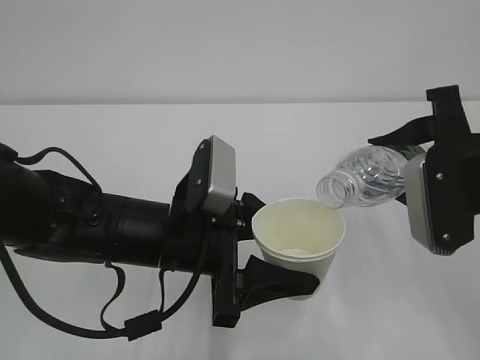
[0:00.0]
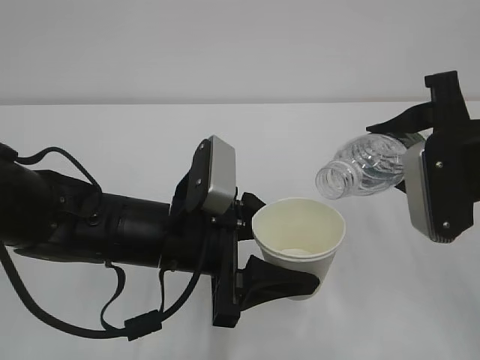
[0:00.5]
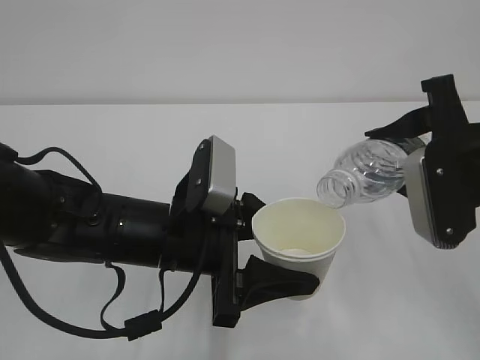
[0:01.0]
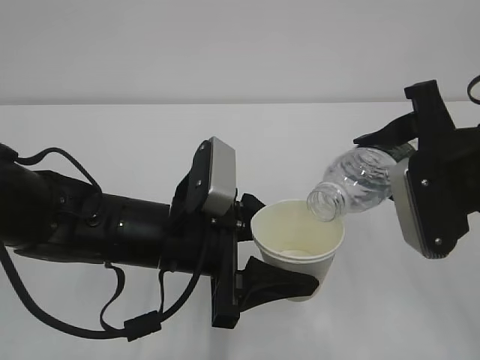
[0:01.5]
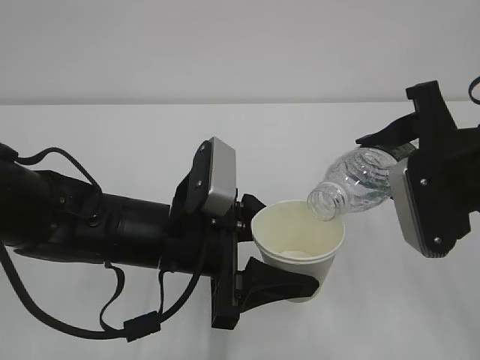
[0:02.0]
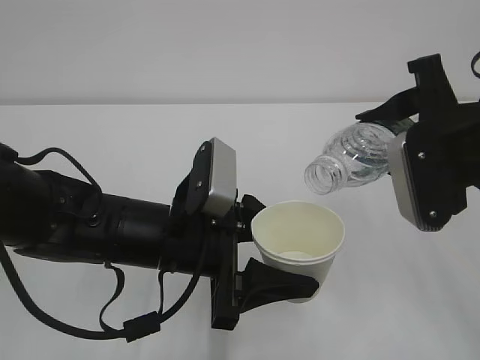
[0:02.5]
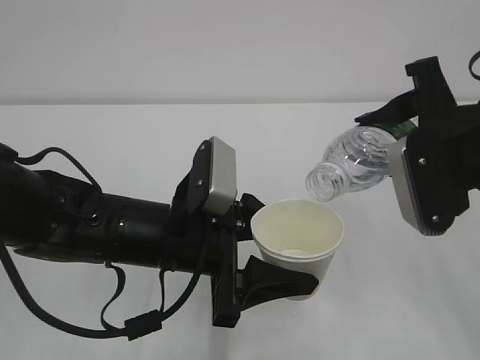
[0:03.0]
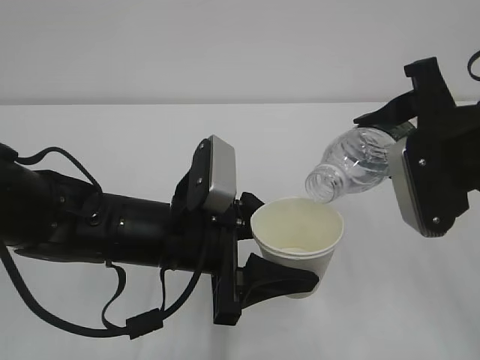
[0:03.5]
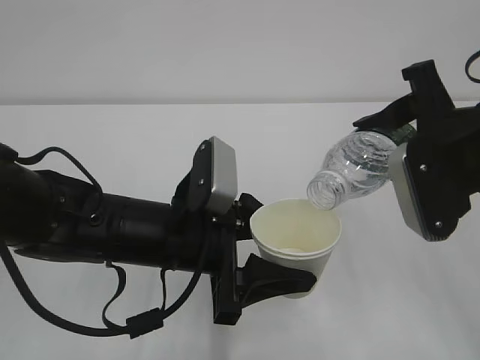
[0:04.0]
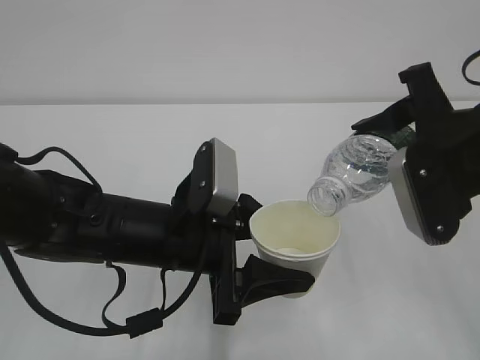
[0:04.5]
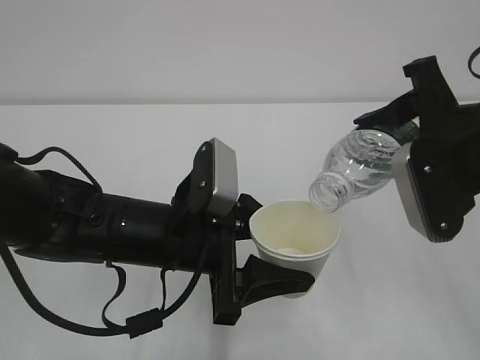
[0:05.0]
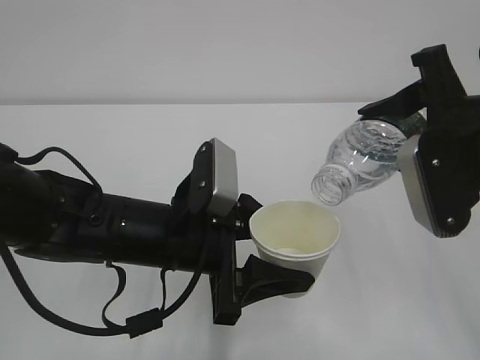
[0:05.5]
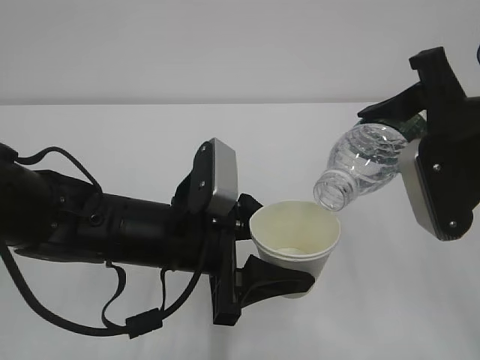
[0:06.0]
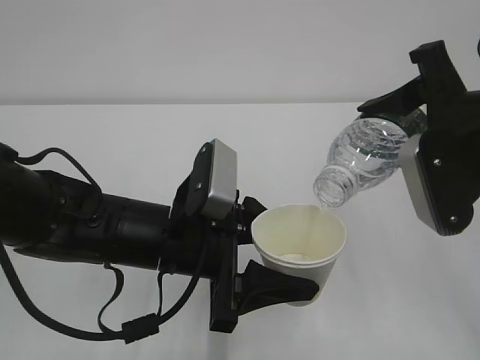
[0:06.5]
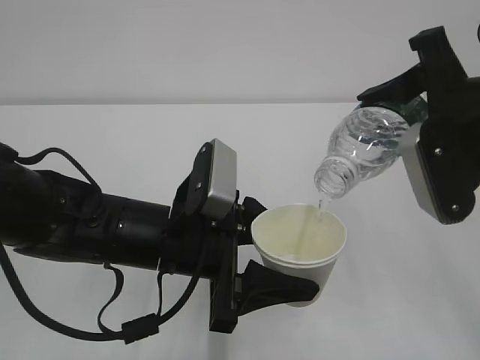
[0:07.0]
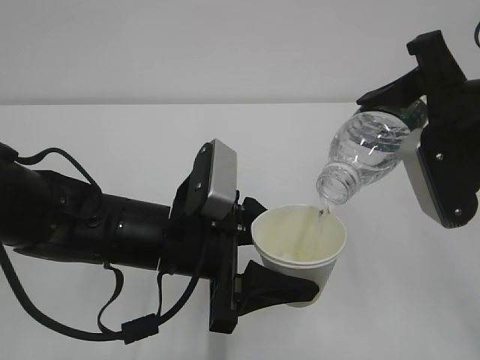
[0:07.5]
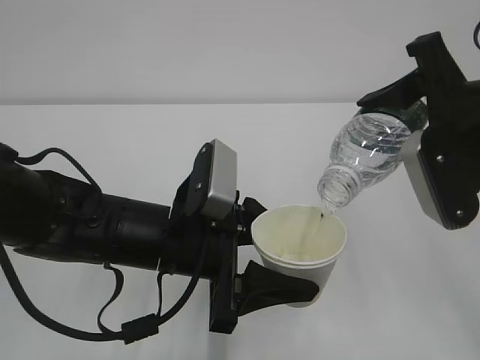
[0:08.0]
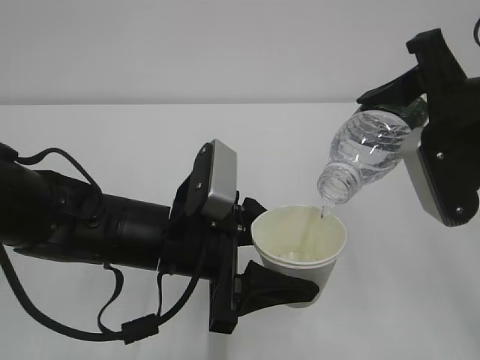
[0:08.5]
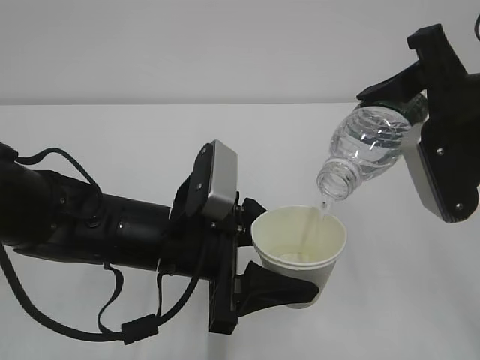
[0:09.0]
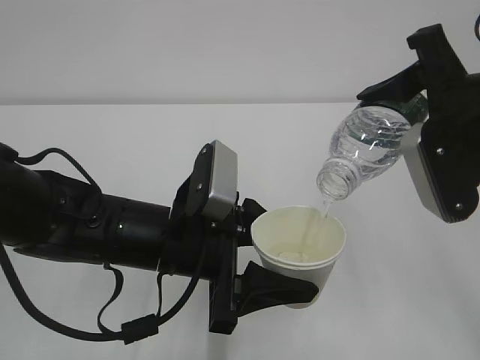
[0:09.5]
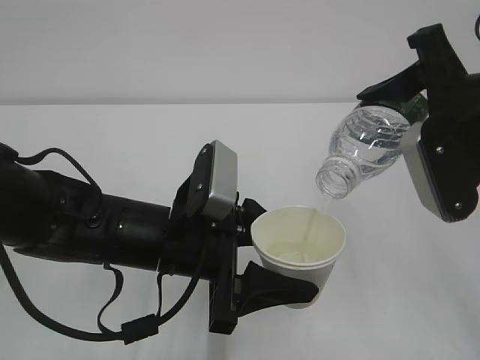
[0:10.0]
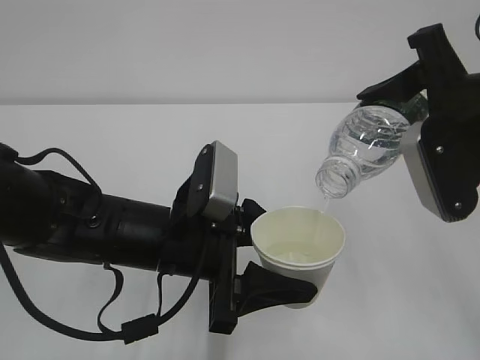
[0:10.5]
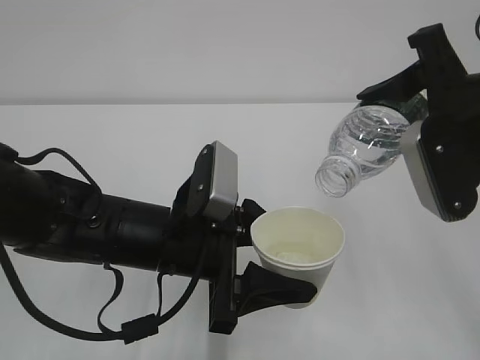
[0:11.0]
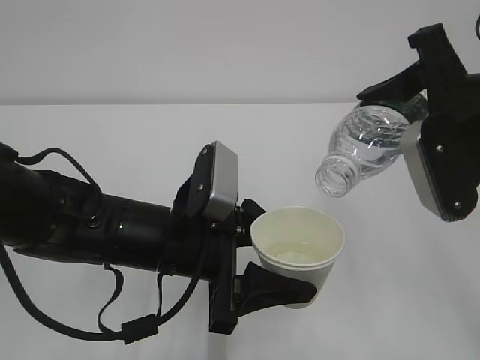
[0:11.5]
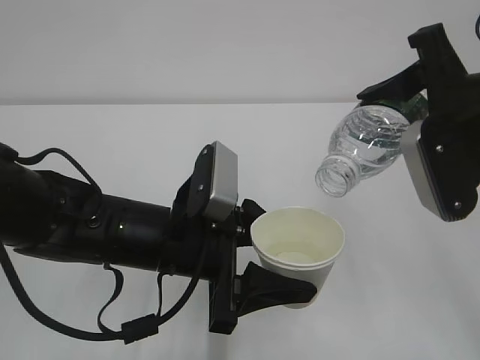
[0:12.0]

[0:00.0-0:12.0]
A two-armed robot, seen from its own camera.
0:00.0 to 0:06.0: The grippers move only a little.
0:06.0 to 0:08.0: The grippers move only a little.
0:08.0 to 0:12.0: Both grippers stay put.

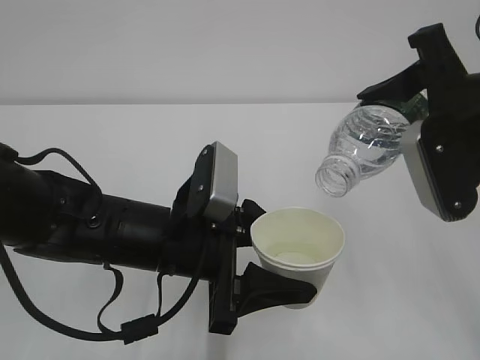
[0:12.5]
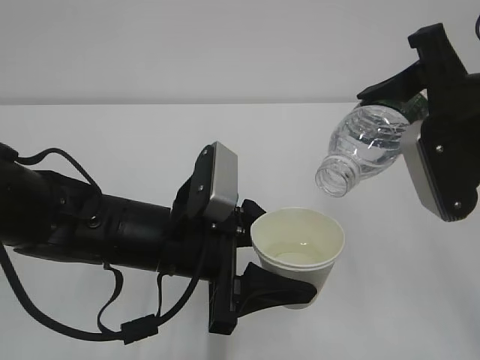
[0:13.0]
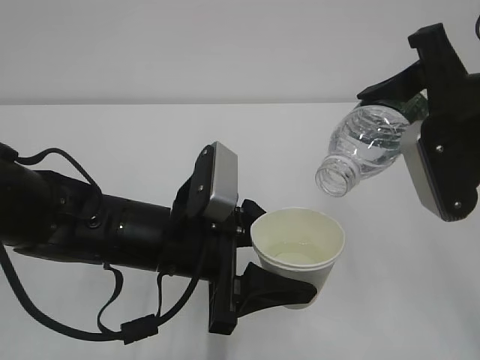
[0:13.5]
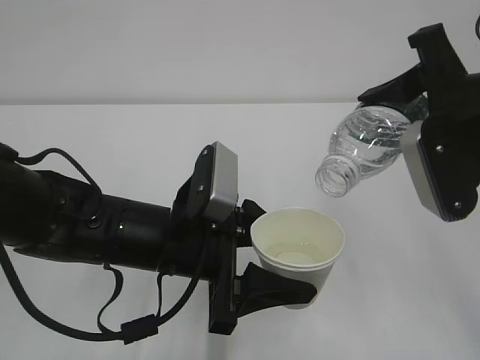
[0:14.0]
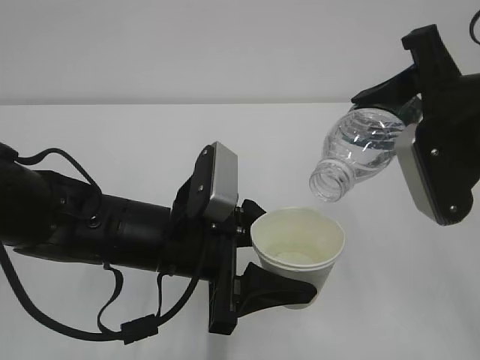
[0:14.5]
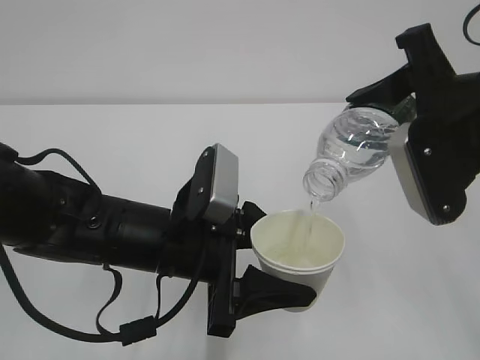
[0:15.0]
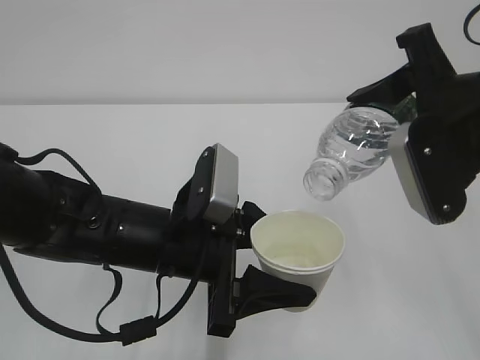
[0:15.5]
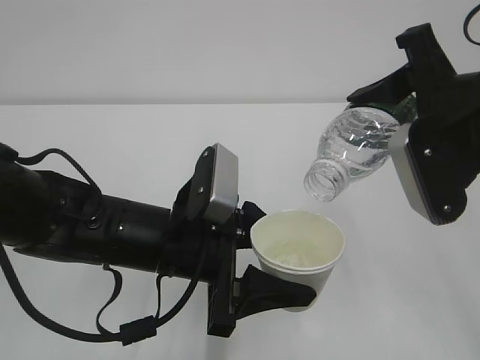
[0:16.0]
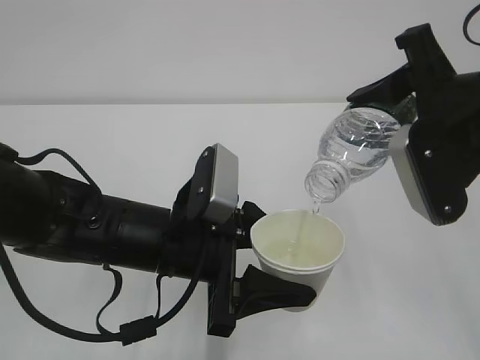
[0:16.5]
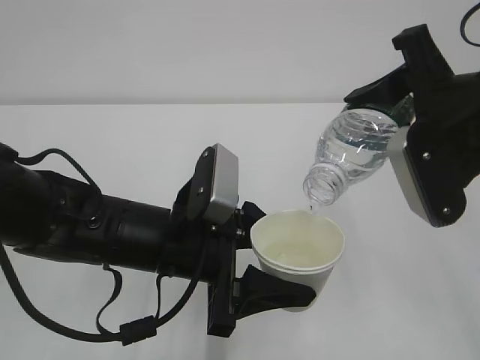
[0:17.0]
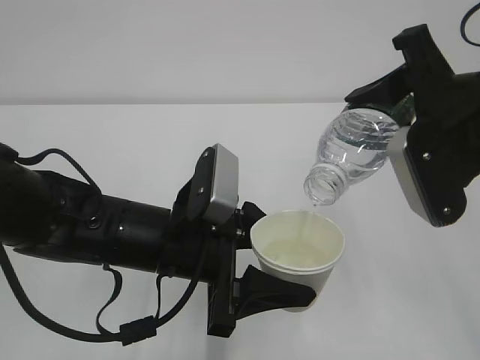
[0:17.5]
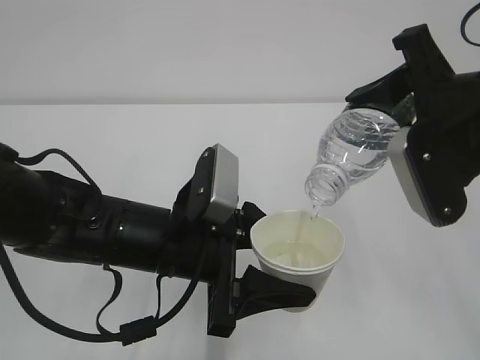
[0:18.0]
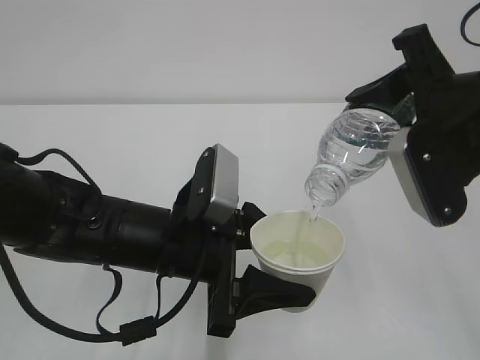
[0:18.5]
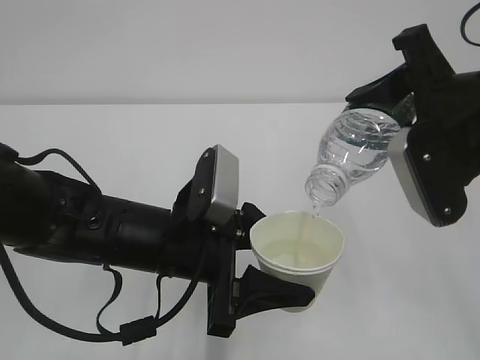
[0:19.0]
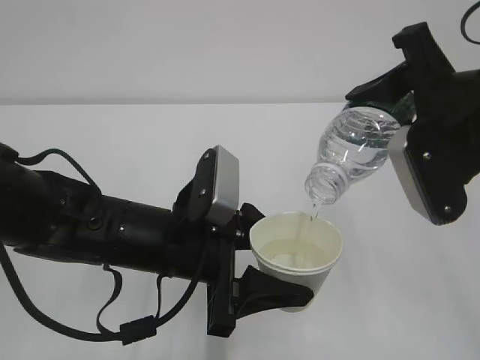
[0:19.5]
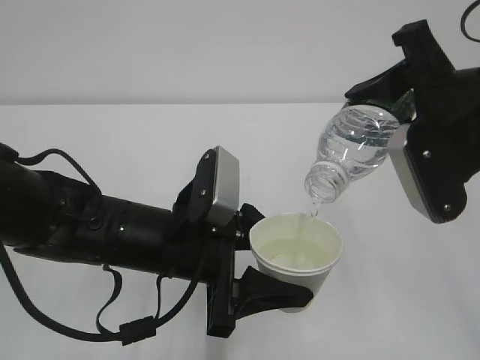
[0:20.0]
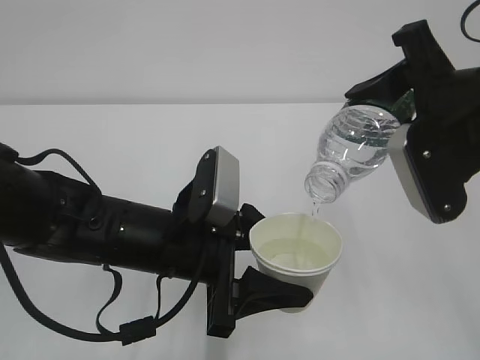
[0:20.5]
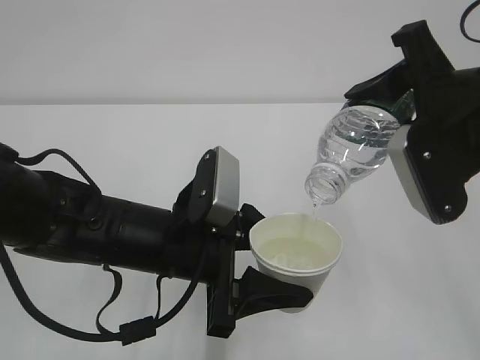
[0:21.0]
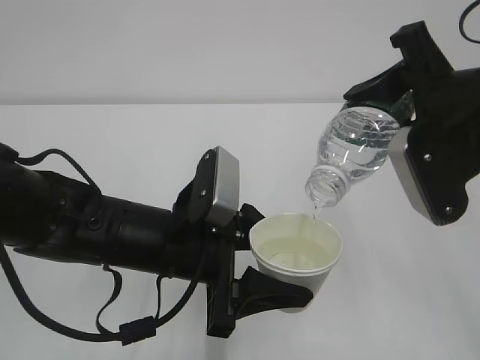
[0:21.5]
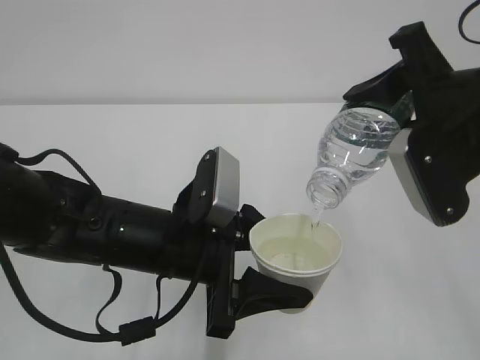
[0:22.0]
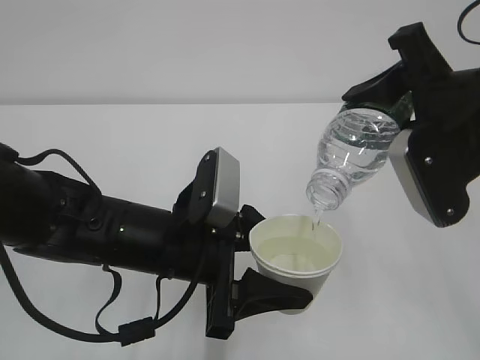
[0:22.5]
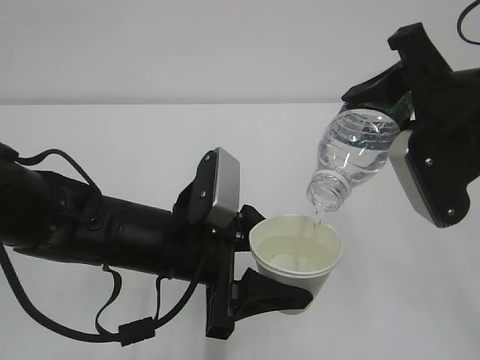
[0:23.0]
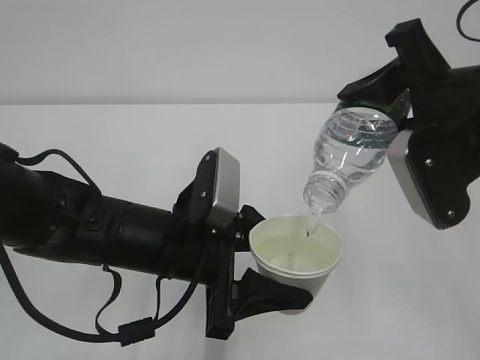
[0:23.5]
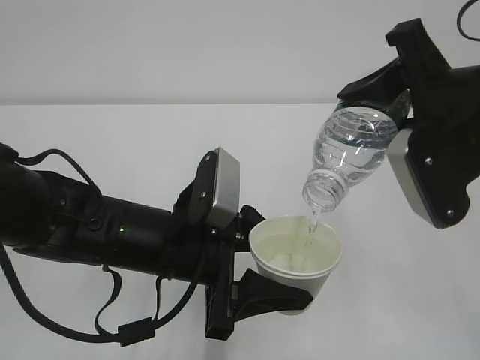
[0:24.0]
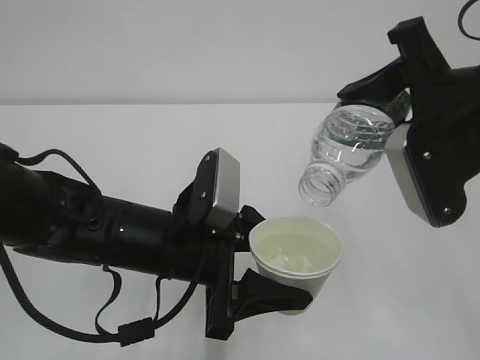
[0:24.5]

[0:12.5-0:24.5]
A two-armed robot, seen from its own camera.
0:12.5 to 0:20.5: Both grippers stay about where they are.
0:20.5 to 0:24.5: Neither gripper changes place.

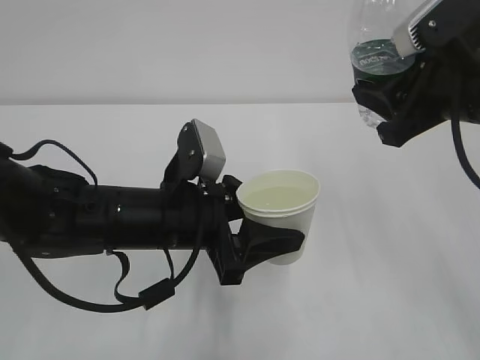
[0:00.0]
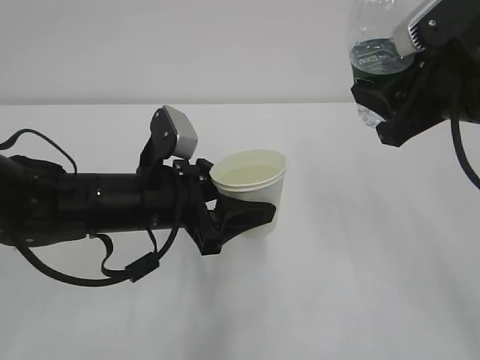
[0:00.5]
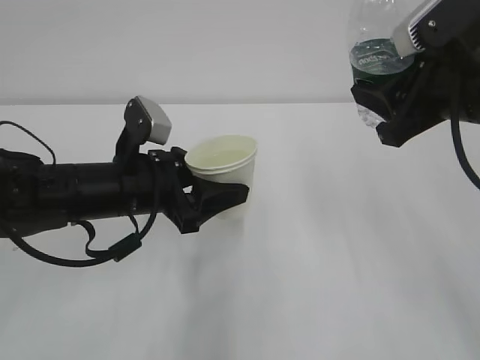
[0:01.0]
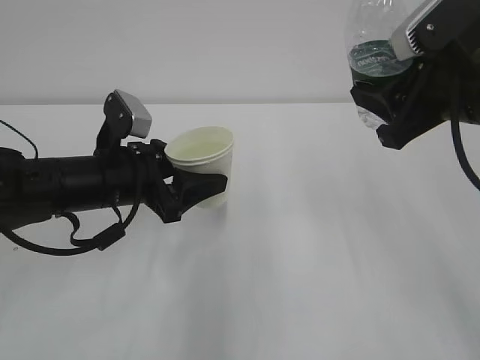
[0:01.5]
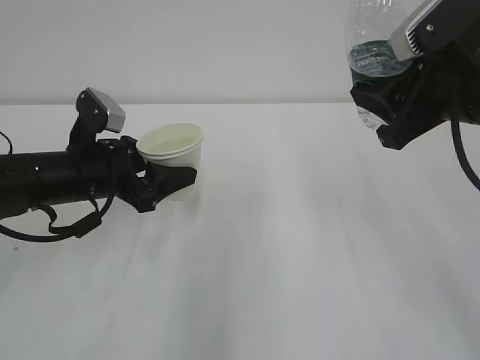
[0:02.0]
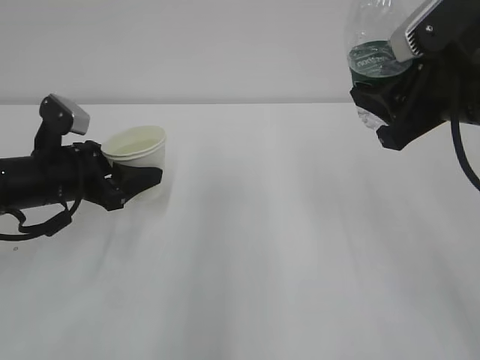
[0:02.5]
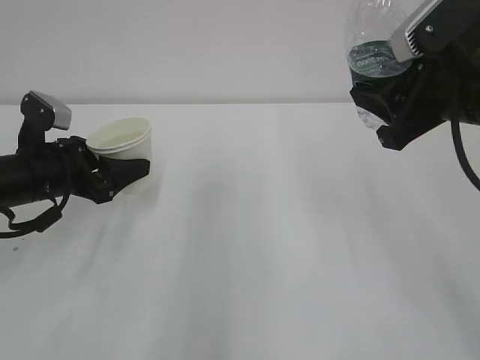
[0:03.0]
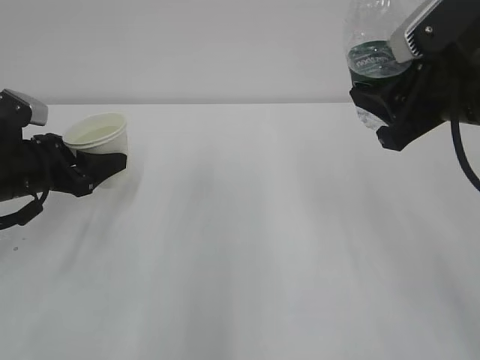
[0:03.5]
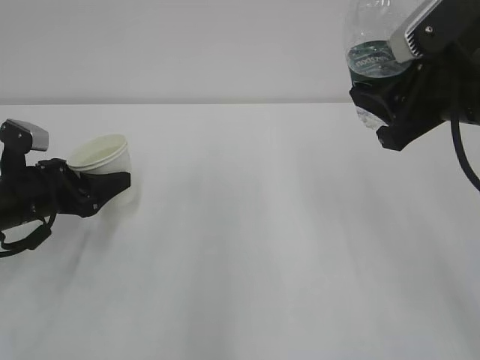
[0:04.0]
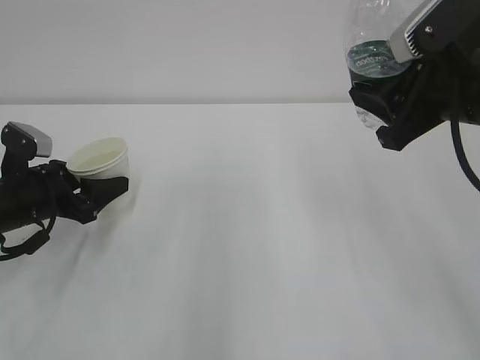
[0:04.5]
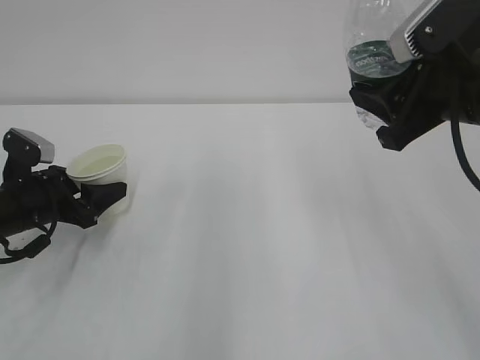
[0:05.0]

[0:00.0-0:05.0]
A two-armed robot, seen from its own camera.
0:00.0 to 0:02.5: The left gripper heads to the left and forward, covering about 15 cm.
0:02.5 to 0:05.0: The left gripper shifts by some 5 cm.
